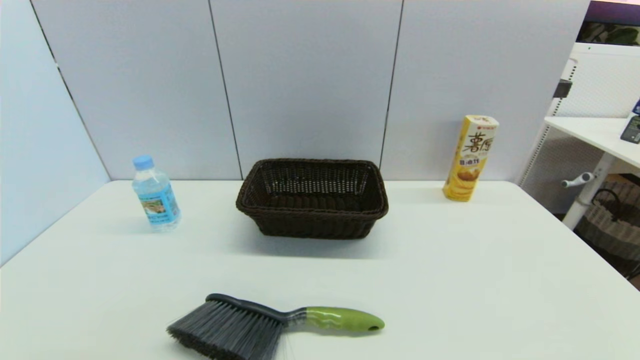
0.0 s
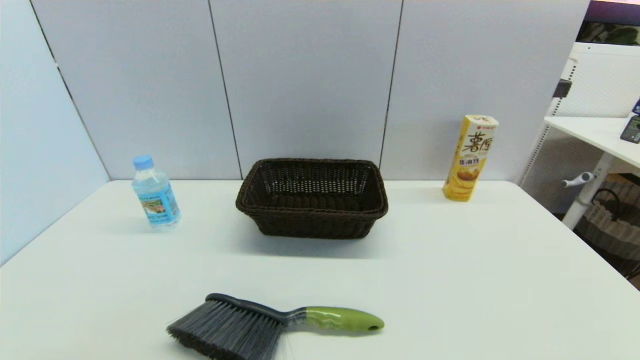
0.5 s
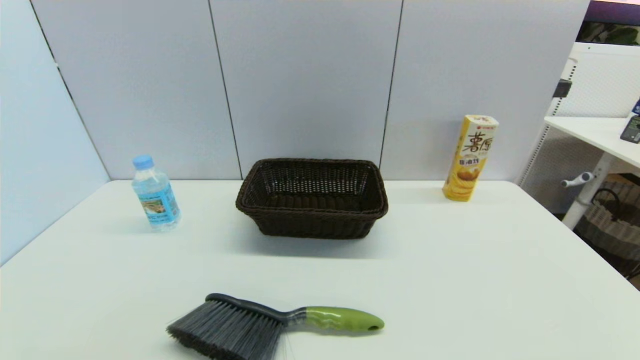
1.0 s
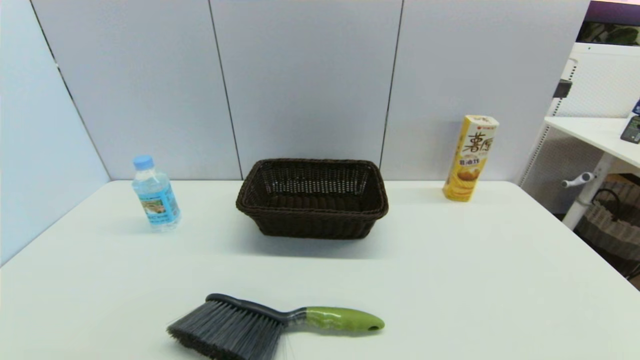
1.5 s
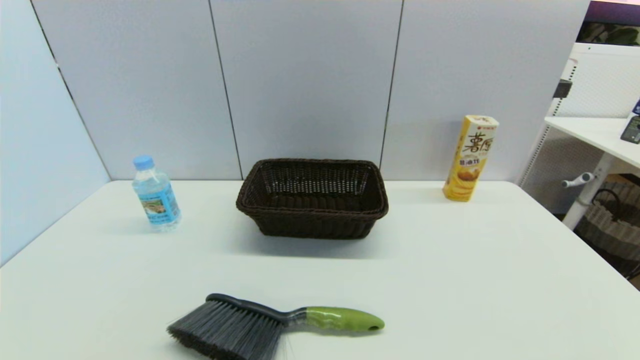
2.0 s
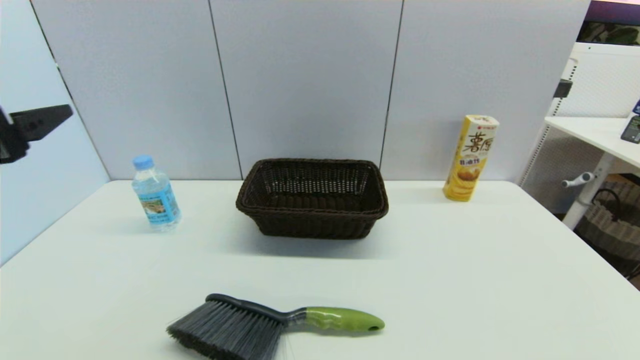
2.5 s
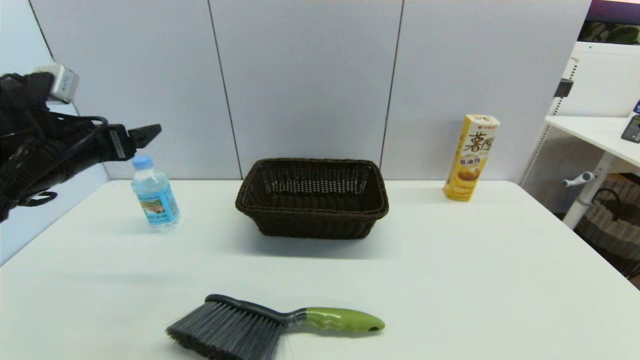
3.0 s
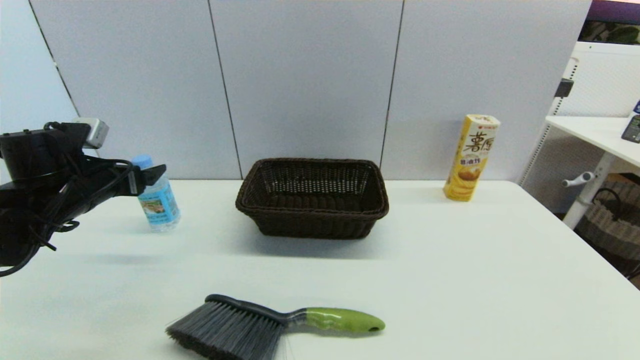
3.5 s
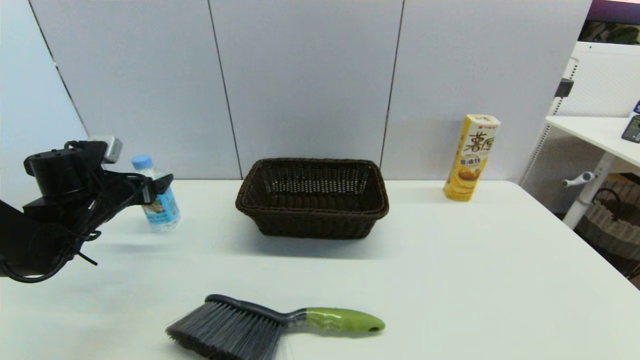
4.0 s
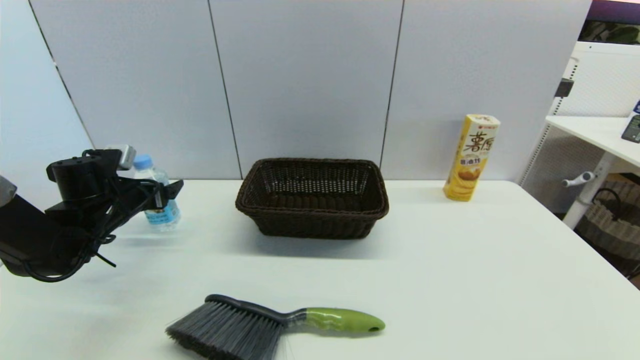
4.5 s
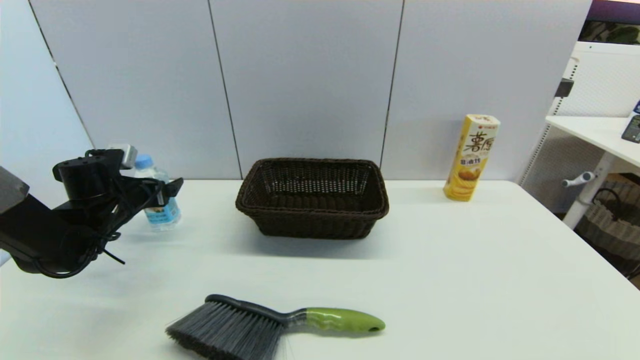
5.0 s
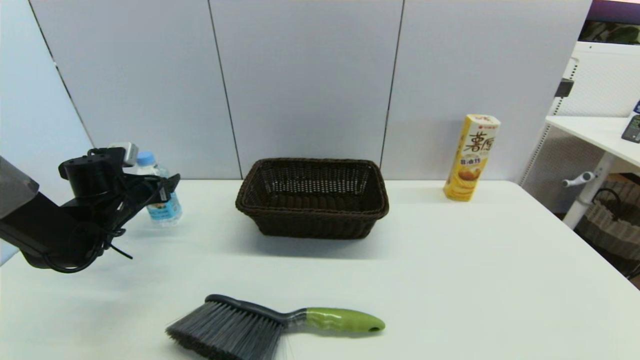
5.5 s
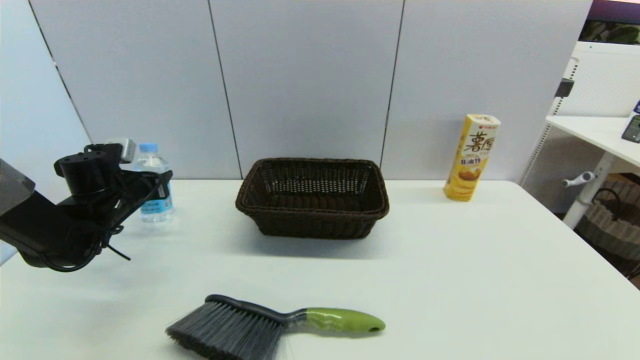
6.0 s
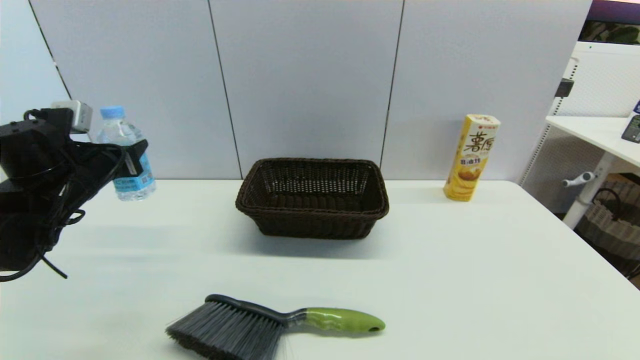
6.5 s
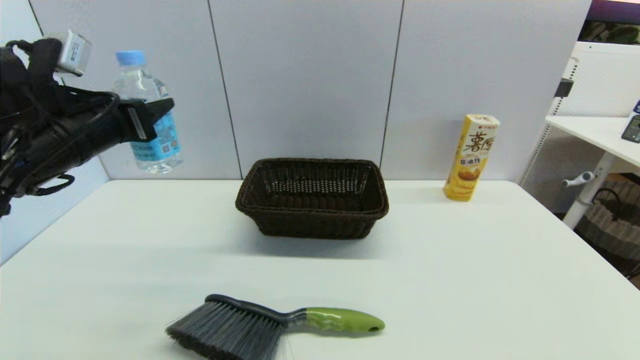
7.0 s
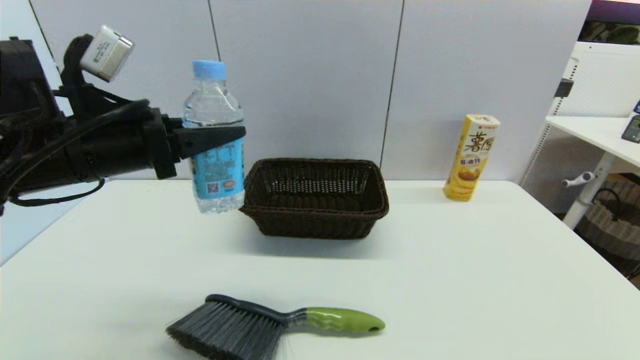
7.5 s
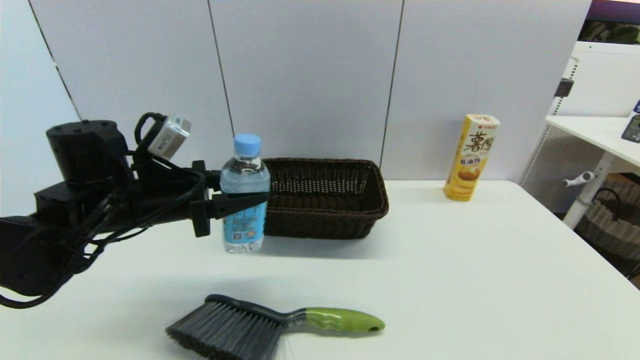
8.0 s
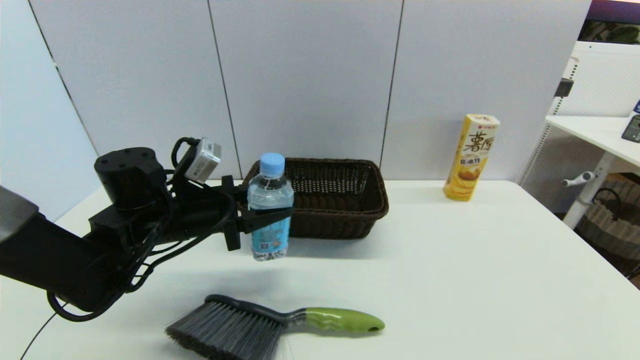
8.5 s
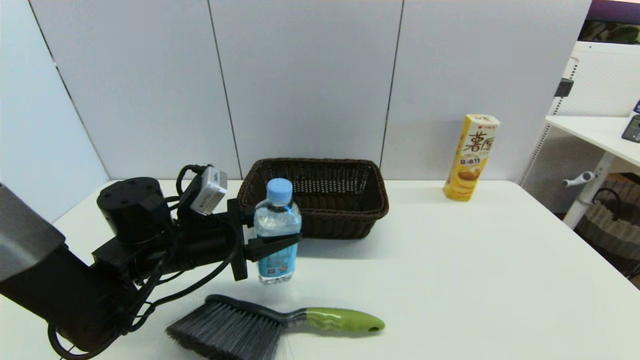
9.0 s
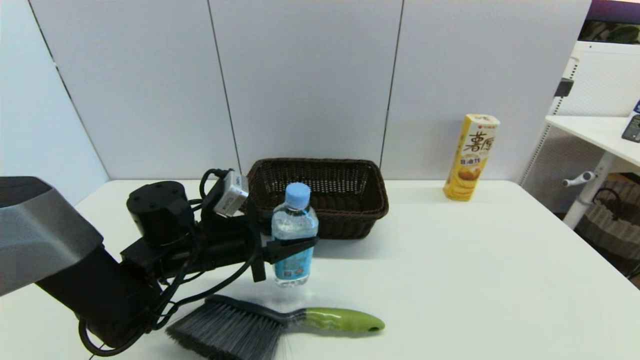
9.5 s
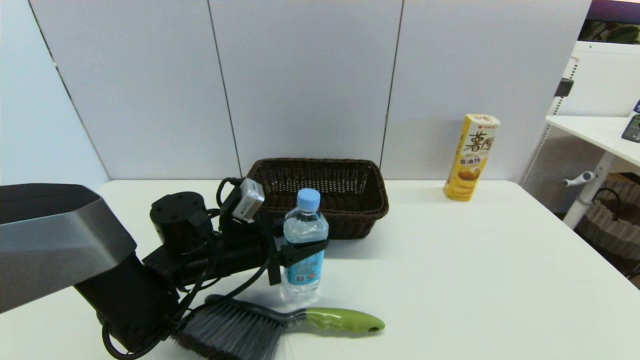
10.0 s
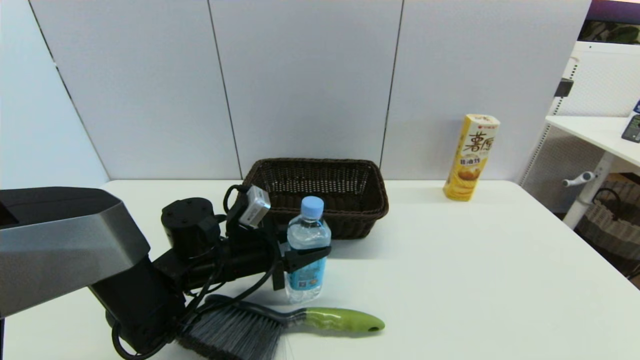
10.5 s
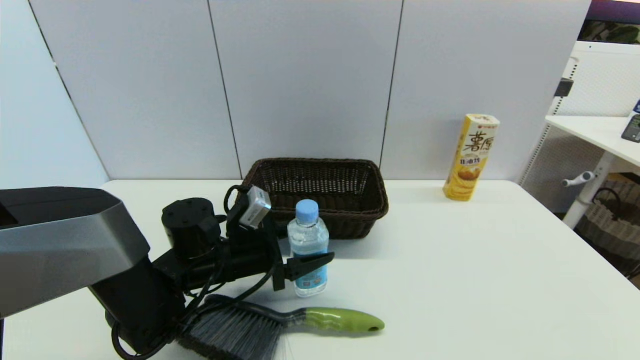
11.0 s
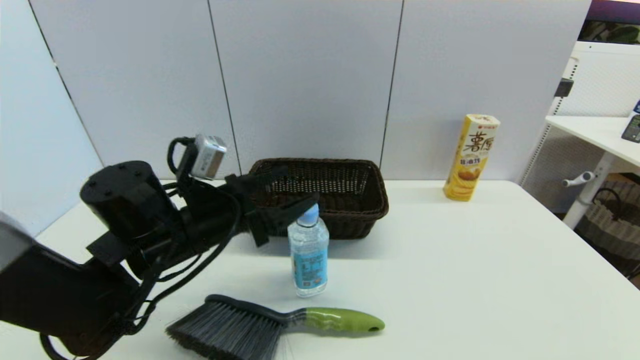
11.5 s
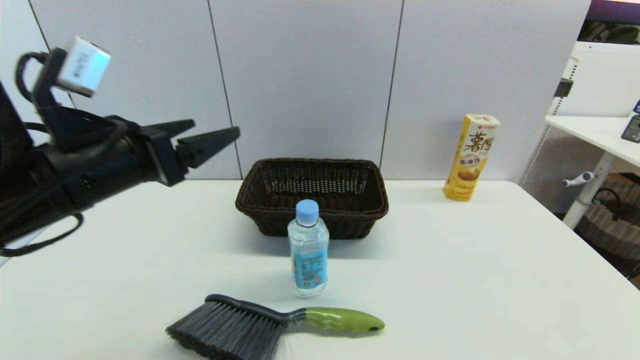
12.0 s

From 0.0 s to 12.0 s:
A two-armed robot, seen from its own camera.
Step, from 2.0 s to 5.5 s: Grasp the soda water with left gripper.
Step, from 6.0 s to 11.0 s: Place the soda water on the table with left gripper.
From 2.0 s to 4.0 s: The left gripper heads forward, covering about 35 cm.
From 4.0 s to 6.0 s: The left gripper closes.
From 6.0 s to 8.0 s: The left gripper travels to the right, backward and upward by approximately 15 cm.
From 8.0 s to 10.0 s: The left gripper moves downward and to the right, roughly 10 cm.
From 10.0 s to 12.0 s: The left gripper is displaced upward, to the left and backward by some 20 cm, and opens up.

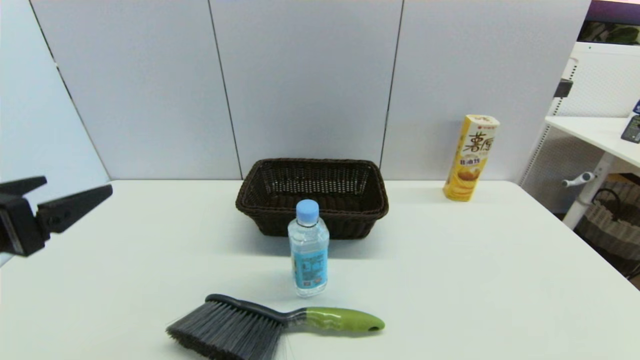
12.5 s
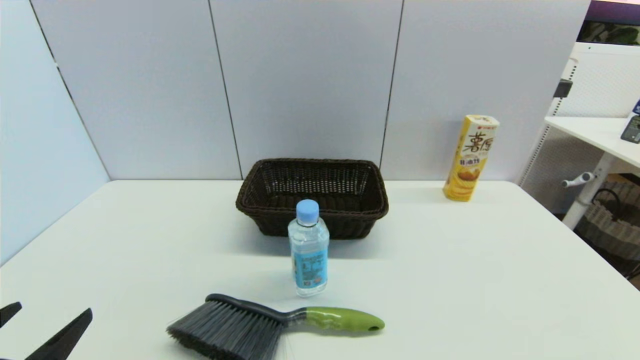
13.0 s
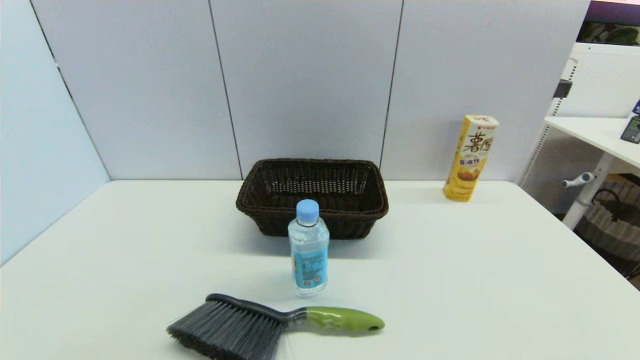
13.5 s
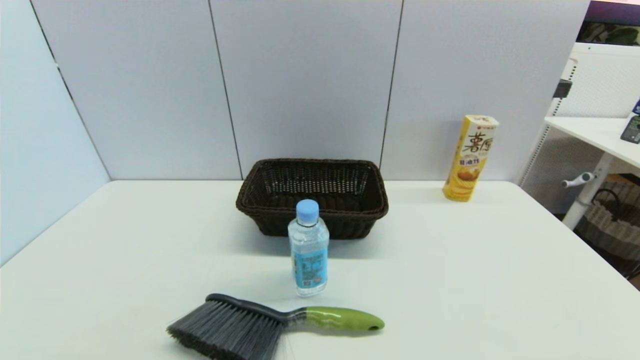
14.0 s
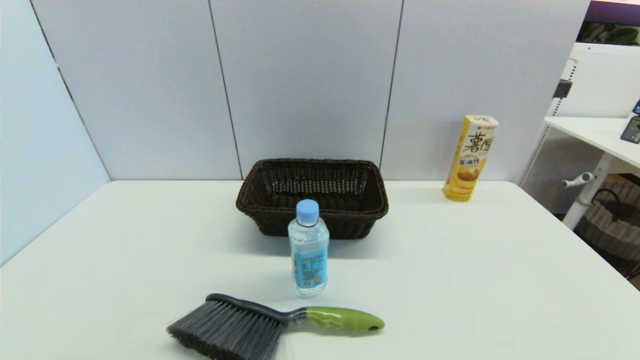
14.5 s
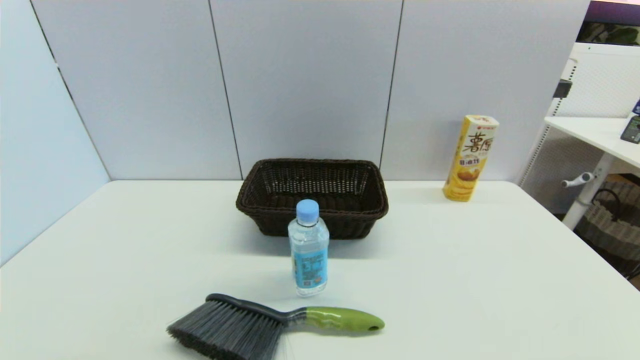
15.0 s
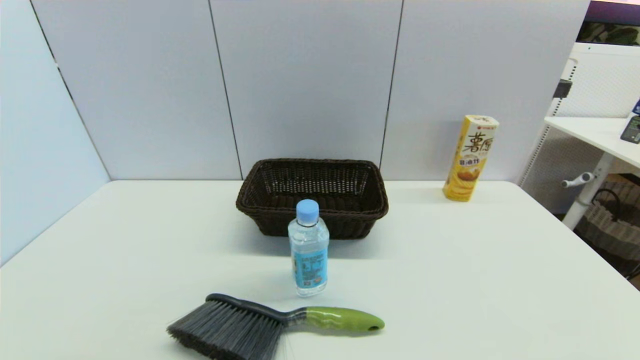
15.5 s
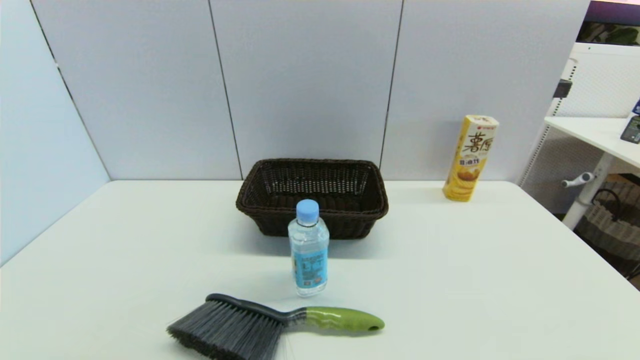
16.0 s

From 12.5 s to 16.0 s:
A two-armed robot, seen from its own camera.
From 12.5 s to 14.5 s: The left gripper is displaced downward and backward by some 20 cm.
From 14.5 s to 16.0 s: The two grippers keep their place.

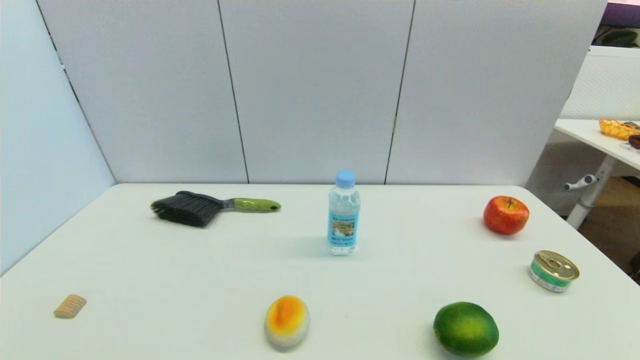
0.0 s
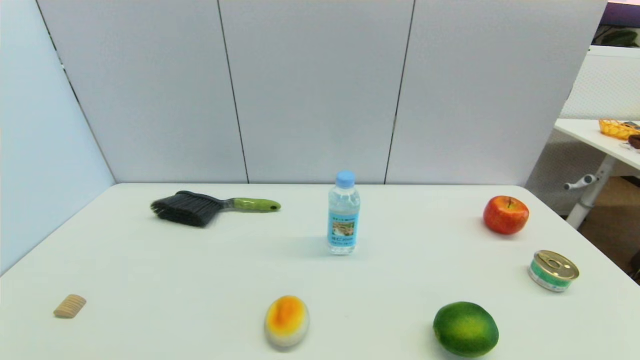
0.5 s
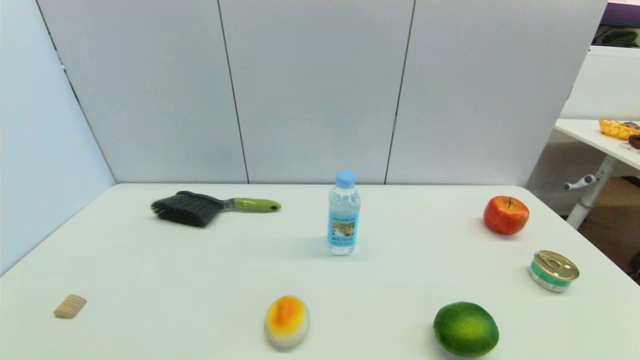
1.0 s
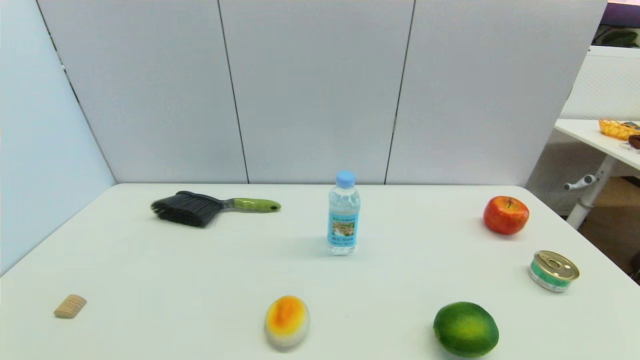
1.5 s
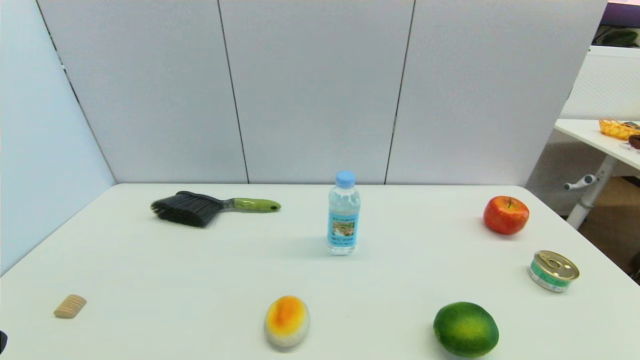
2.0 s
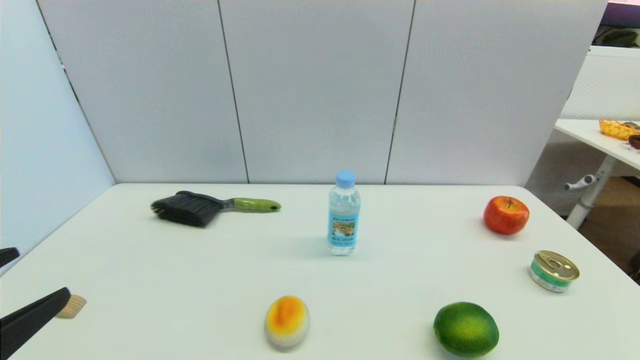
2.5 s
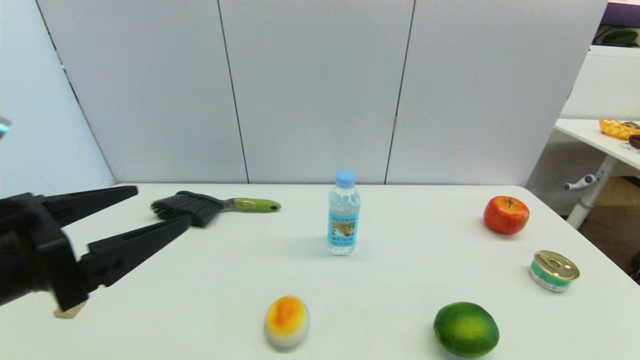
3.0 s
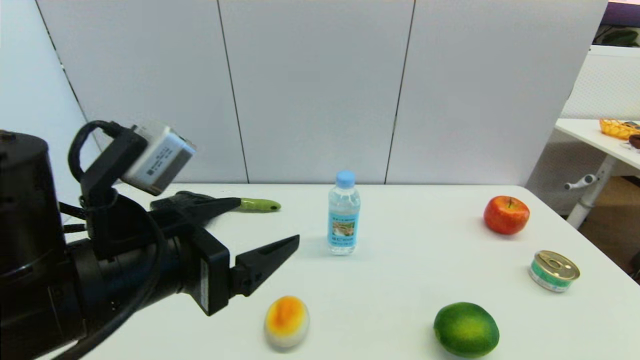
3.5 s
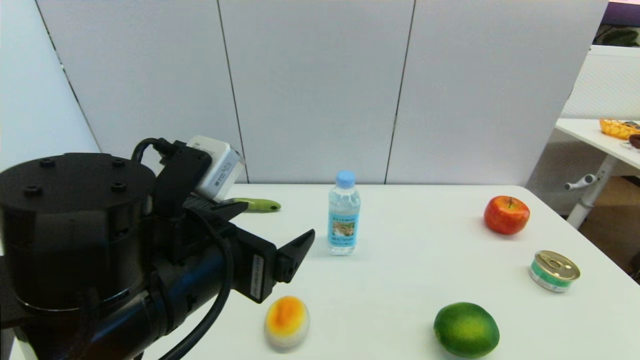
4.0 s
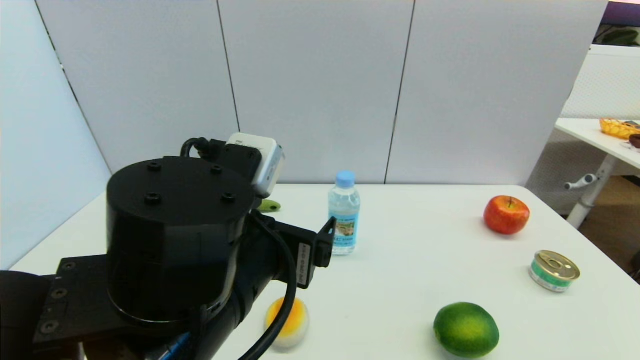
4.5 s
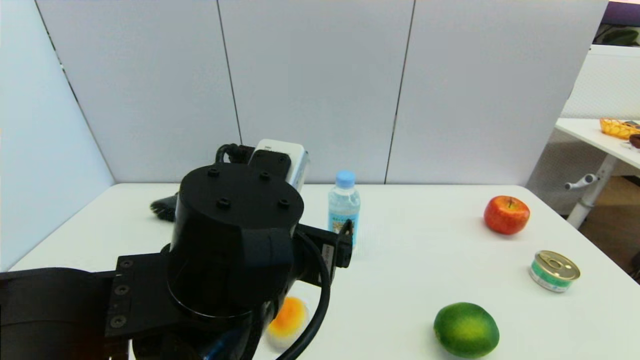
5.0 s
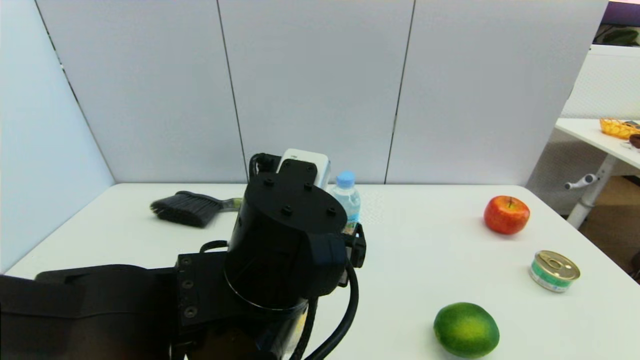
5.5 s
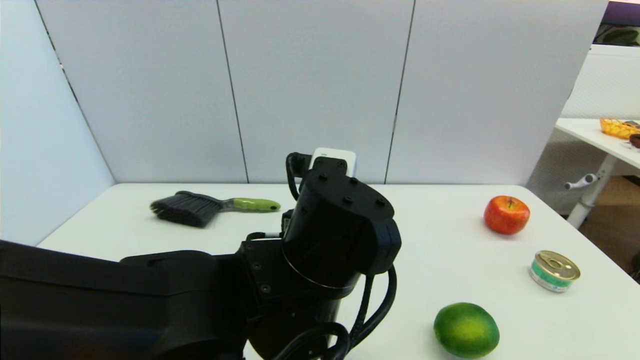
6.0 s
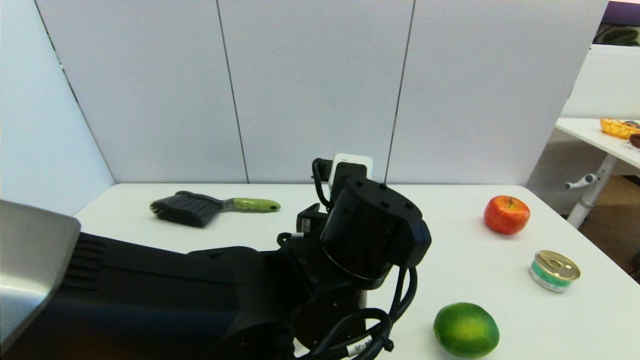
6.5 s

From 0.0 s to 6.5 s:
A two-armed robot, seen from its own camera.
From 2.0 s to 4.5 s: The left gripper heads to the right and forward, covering some 30 cm.
From 4.5 s to 6.5 s: The left gripper heads to the right and forward, covering about 10 cm.
